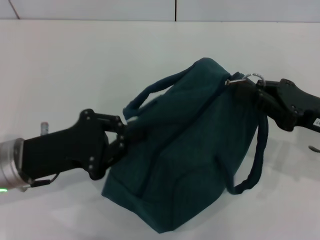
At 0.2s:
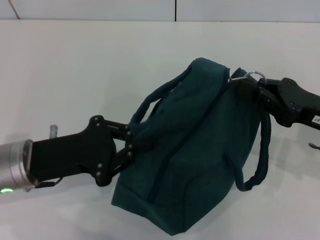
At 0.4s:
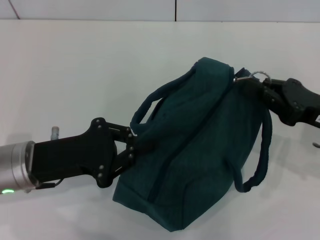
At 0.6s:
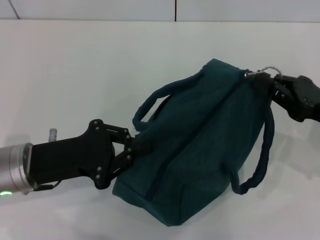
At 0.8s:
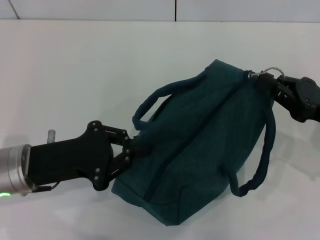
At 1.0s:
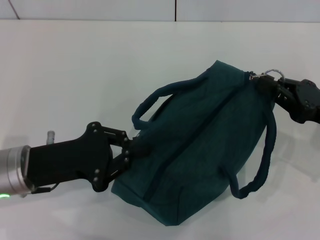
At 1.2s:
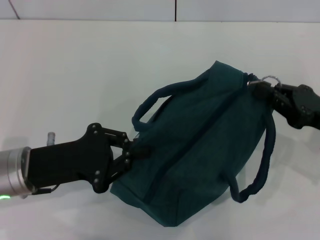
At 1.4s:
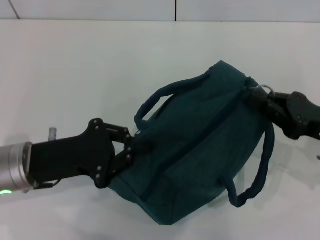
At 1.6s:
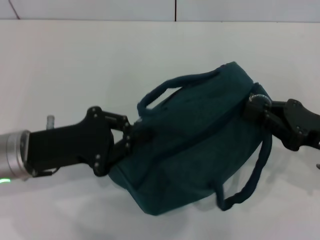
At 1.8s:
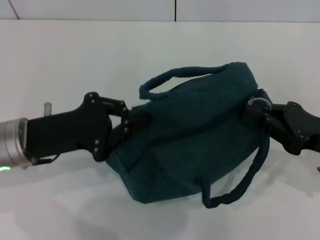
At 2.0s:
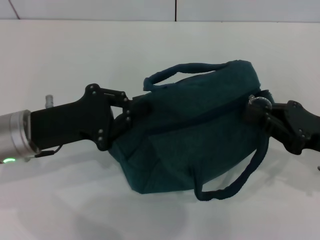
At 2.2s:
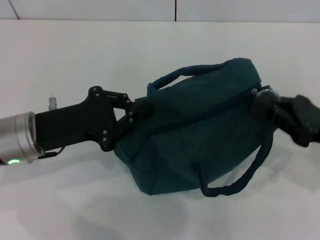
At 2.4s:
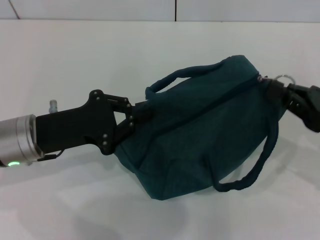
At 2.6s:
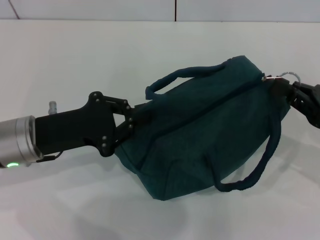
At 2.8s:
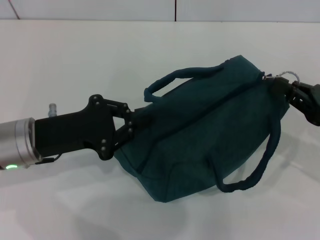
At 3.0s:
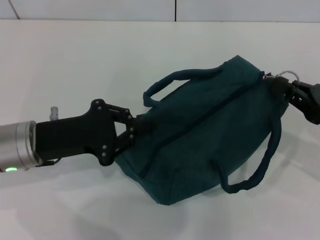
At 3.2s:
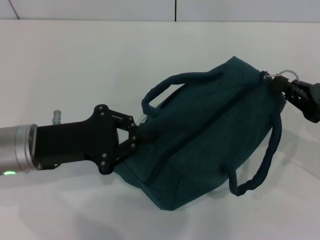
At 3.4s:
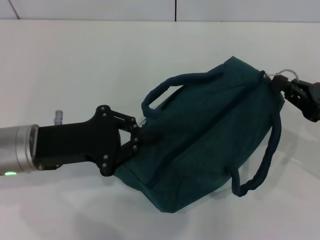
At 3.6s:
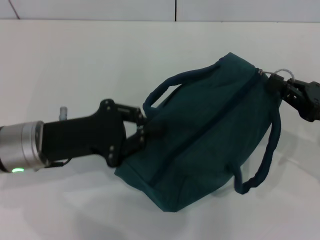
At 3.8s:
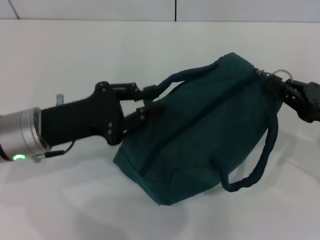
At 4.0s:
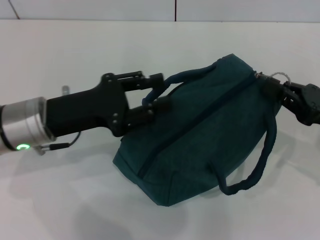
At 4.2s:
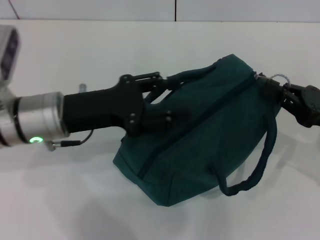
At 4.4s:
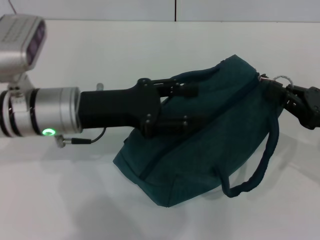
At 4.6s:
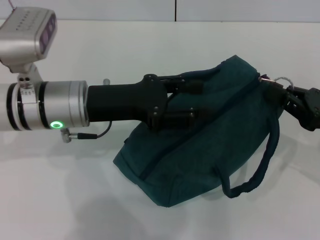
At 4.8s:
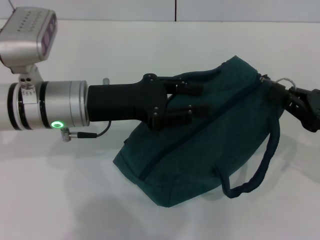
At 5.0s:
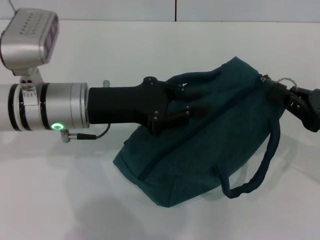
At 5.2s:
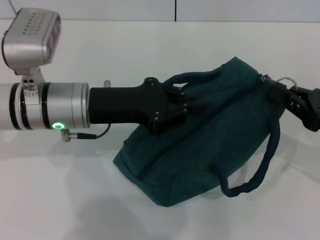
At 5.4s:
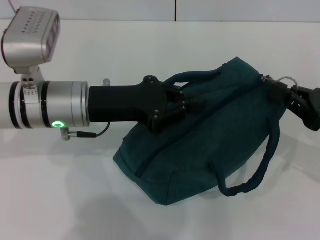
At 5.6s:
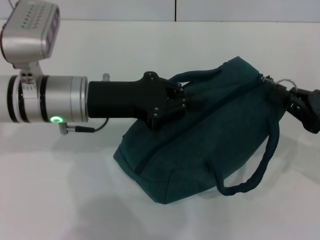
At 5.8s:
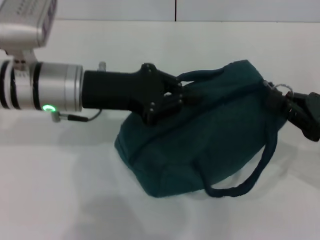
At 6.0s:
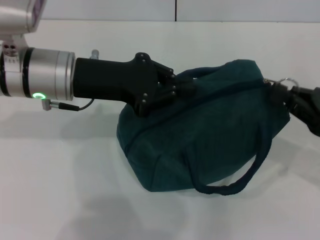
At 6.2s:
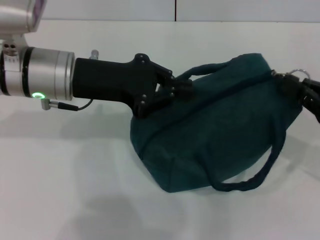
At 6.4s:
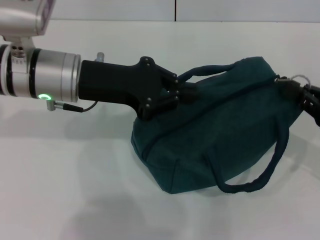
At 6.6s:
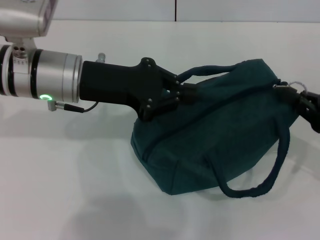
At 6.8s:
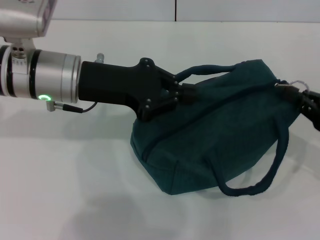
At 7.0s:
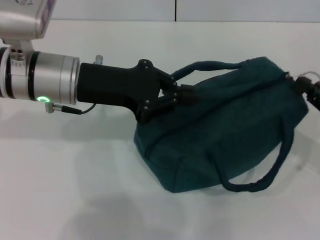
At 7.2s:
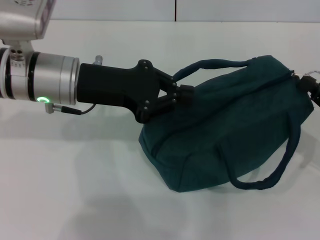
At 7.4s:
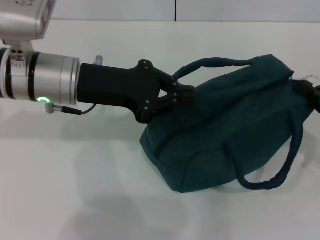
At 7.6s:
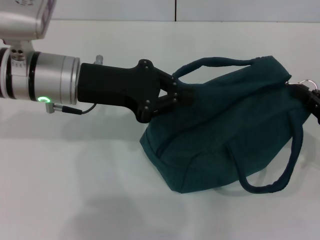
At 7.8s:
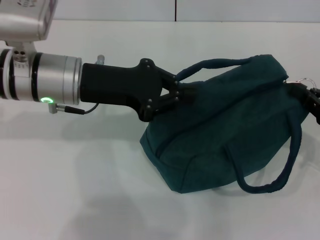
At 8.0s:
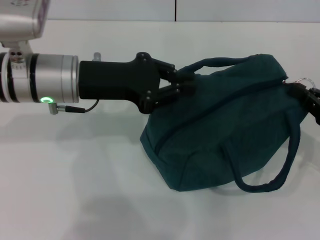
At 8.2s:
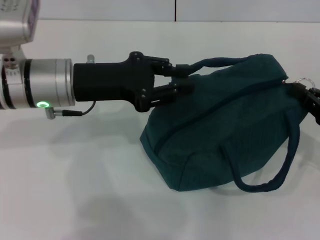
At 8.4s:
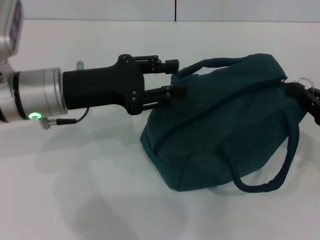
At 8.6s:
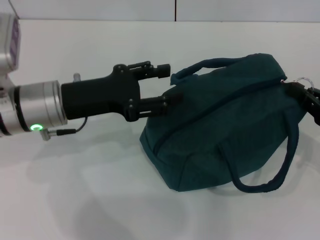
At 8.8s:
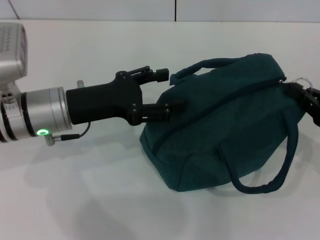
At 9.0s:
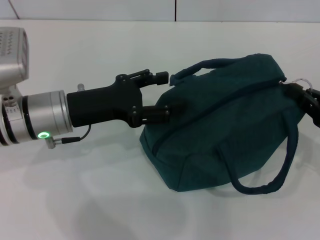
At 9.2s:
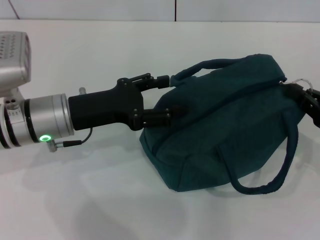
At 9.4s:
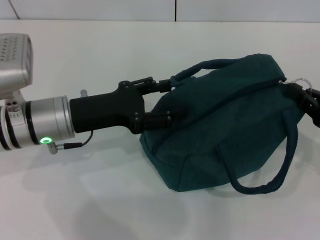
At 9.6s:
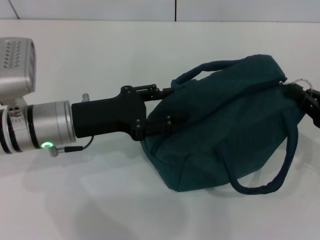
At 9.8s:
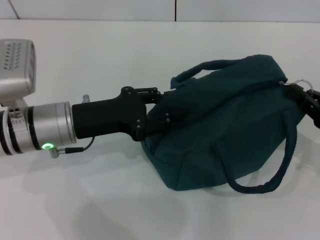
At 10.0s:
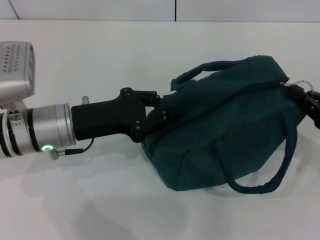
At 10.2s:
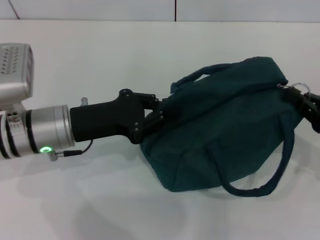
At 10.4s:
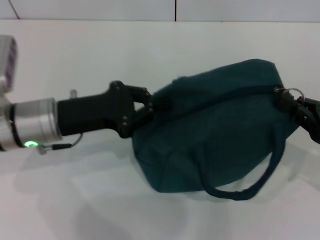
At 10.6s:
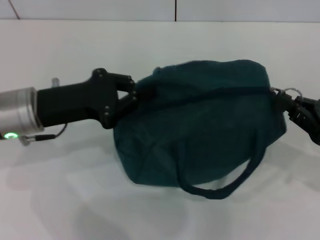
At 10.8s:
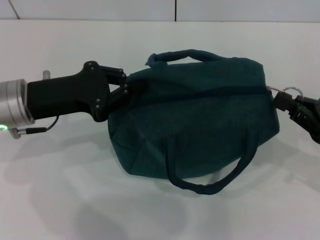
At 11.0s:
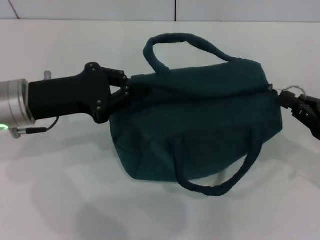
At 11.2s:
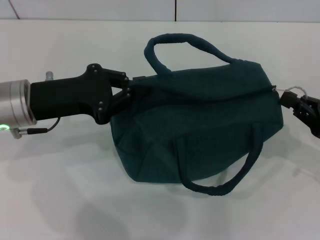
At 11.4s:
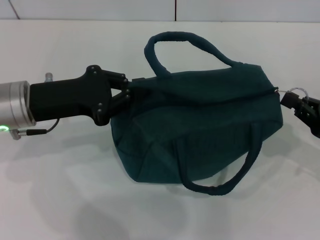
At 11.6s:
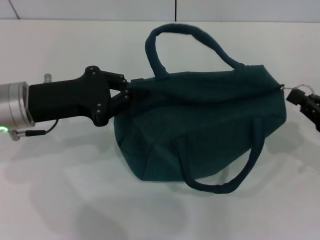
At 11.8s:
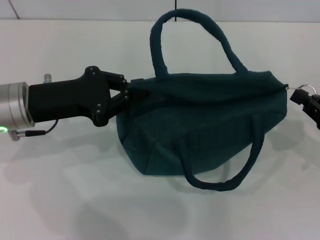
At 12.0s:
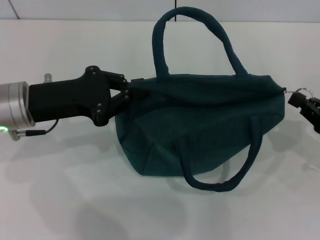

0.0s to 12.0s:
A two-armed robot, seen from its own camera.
0.0s to 3.0s: The grippers stay close to where they were, moving slightly.
3.0s to 4.4s: The left gripper heads to the right, covering about 5 cm, and opens.
4.4s to 6.0s: The left gripper moves some 5 cm, and closes its fingers.
6.0s to 7.6s: The grippers move only a little.
7.6s to 9.0s: The left gripper heads downward, covering about 5 cm, and opens its fingers.
9.0s to 10.4s: The left gripper closes.

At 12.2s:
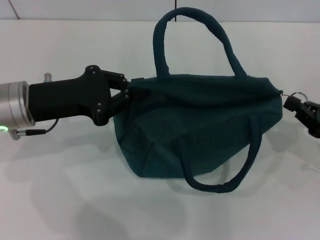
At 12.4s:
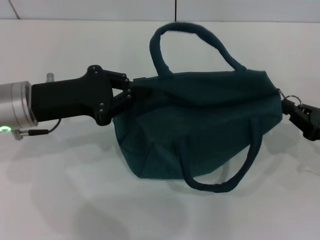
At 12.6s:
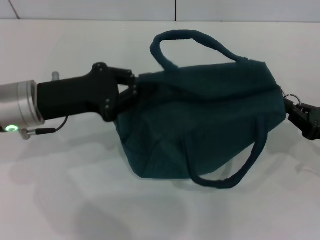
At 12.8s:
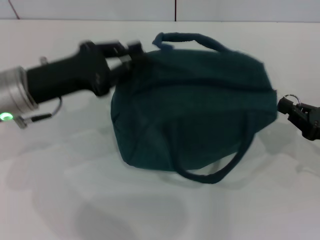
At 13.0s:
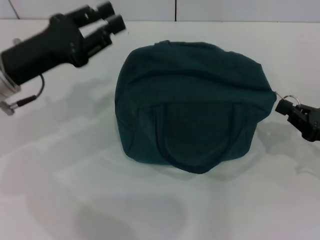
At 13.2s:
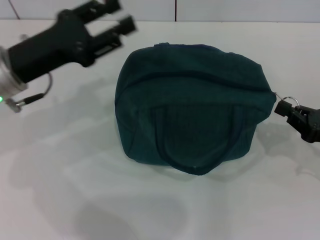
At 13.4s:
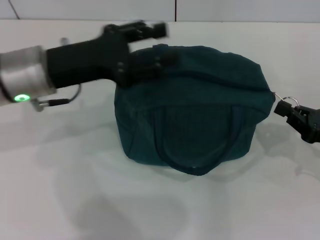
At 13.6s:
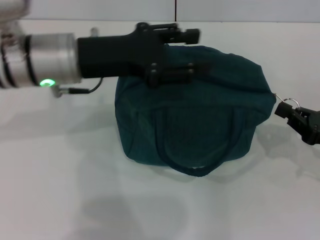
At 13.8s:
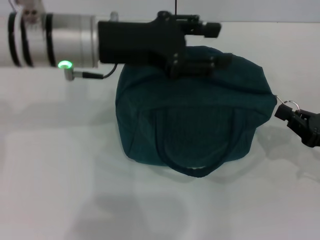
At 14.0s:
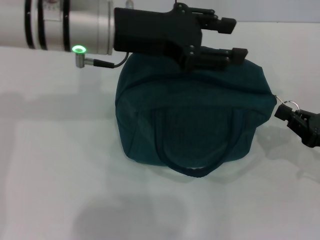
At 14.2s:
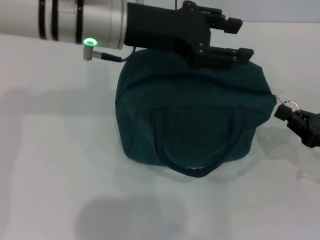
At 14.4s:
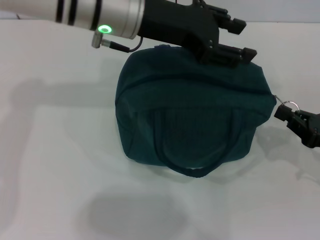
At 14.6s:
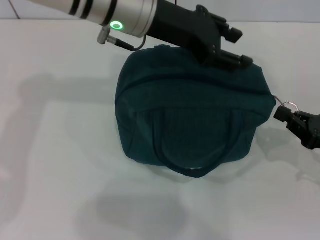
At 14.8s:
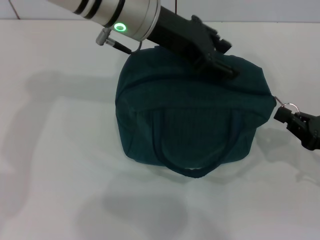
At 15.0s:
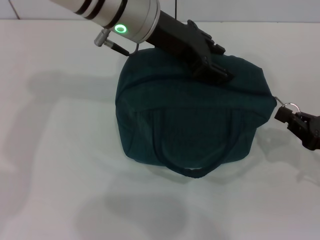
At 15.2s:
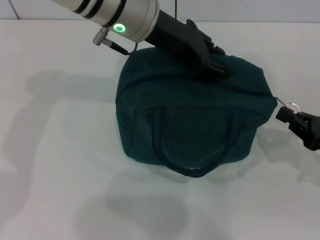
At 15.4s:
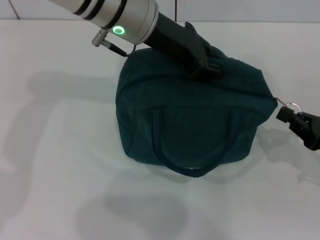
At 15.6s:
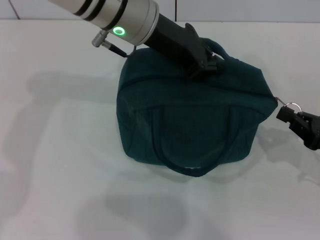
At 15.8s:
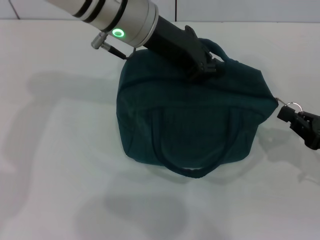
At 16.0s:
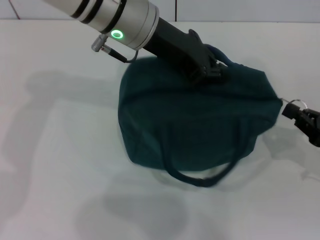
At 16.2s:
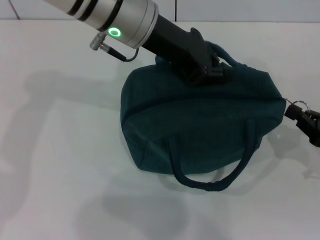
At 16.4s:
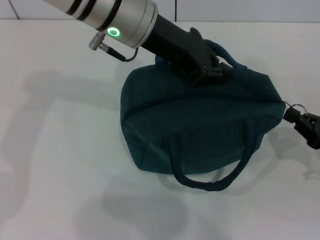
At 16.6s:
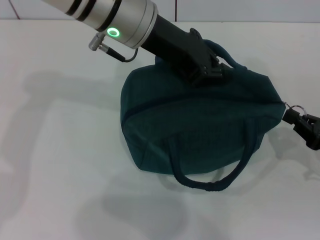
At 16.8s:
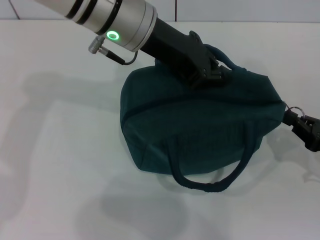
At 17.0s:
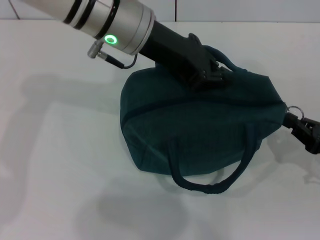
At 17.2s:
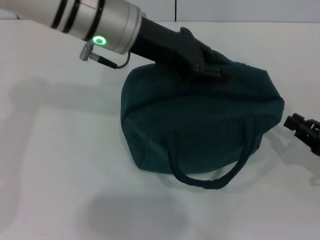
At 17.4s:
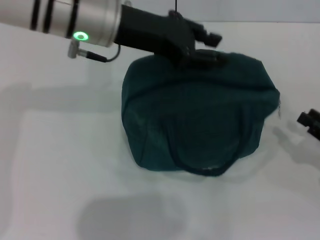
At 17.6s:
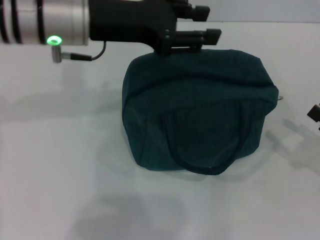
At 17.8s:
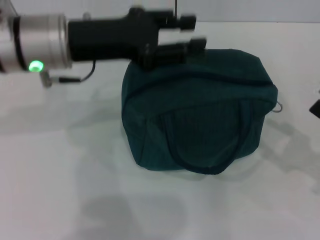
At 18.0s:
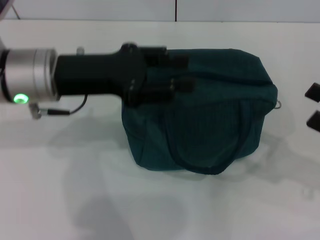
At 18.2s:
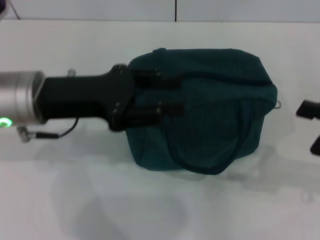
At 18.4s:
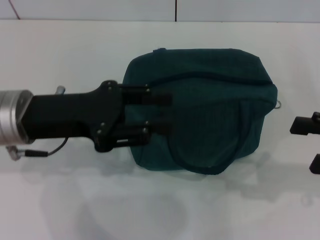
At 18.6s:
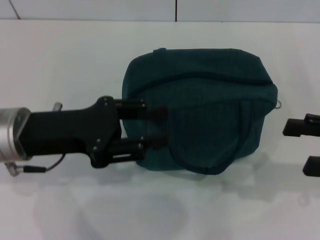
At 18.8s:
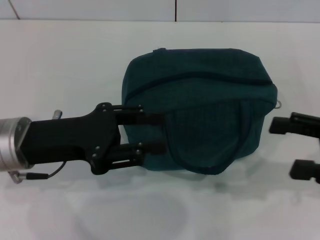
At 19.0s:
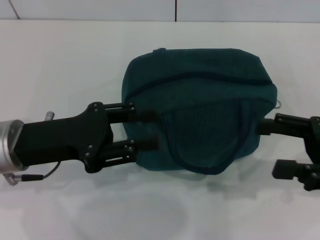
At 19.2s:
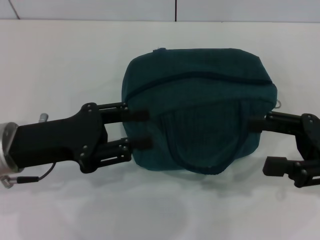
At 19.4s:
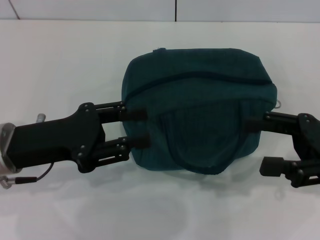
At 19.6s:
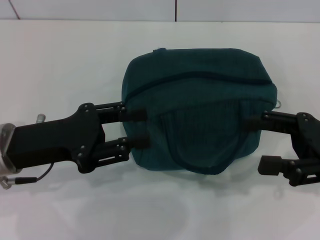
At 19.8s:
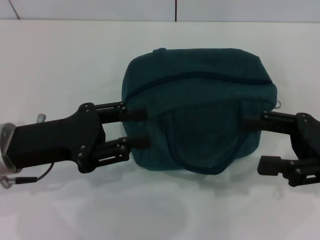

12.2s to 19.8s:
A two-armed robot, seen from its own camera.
Step, 12.2s to 17.0s: Zip up the lunch bag with your right hand.
Step, 17.2s to 17.6s: Hold the lunch bag with your left hand.
12.2s to 13.8s: The left gripper travels to the right and upward by approximately 10 cm, and opens its fingers.
13.8s to 15.2s: The left gripper goes about 10 cm to the right and forward.
15.2s to 16.8s: The left gripper closes up.
16.8s to 18.2s: The right gripper travels upward by roughly 10 cm, and opens; the left gripper moves to the left, backward and downward, about 15 cm, and opens.
18.2s to 19.8s: The right gripper heads to the left, covering about 5 cm, while the left gripper ends up some 5 cm from where it was.

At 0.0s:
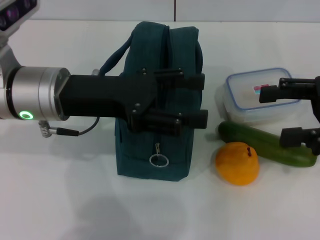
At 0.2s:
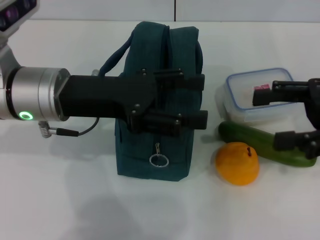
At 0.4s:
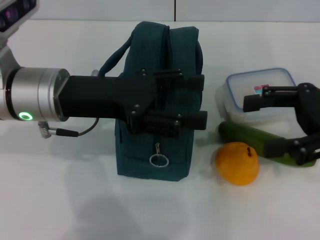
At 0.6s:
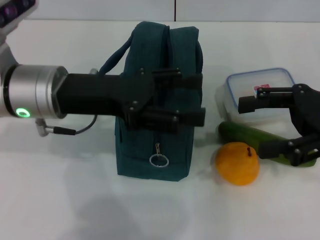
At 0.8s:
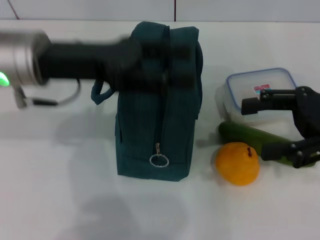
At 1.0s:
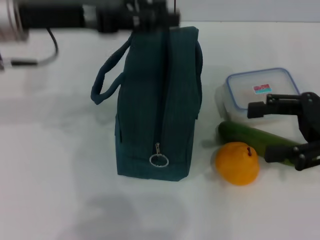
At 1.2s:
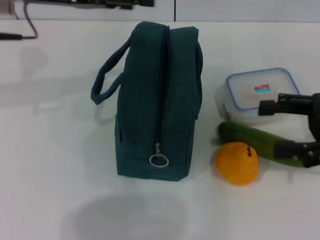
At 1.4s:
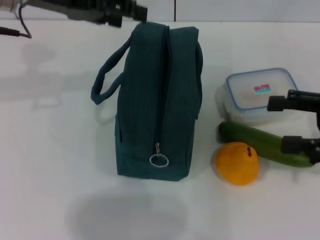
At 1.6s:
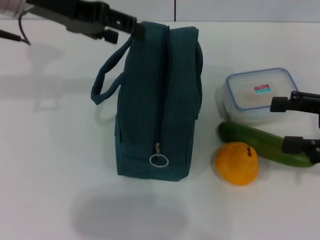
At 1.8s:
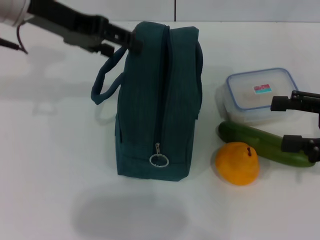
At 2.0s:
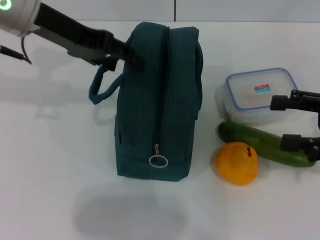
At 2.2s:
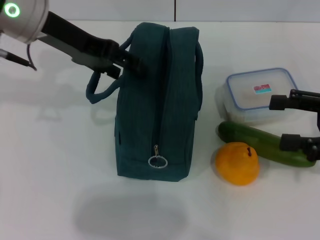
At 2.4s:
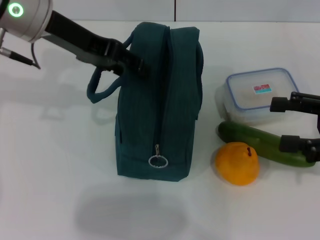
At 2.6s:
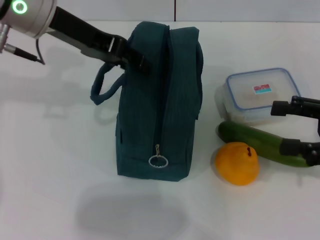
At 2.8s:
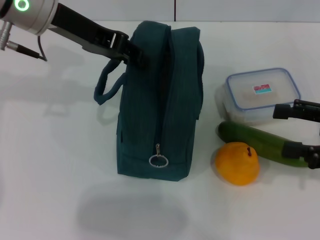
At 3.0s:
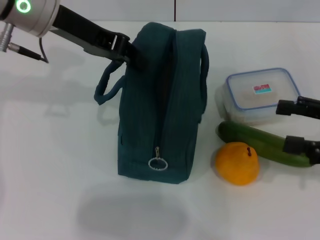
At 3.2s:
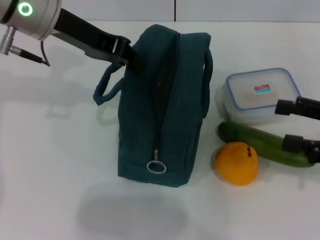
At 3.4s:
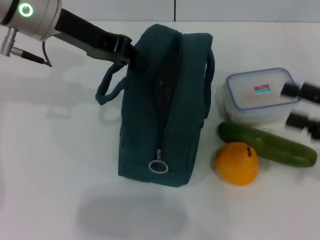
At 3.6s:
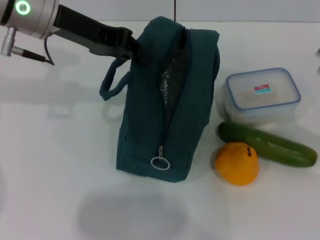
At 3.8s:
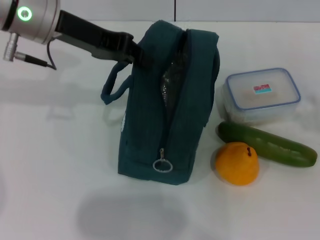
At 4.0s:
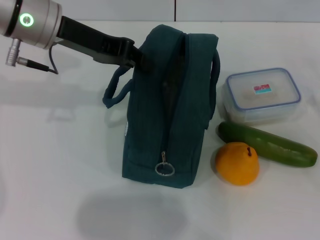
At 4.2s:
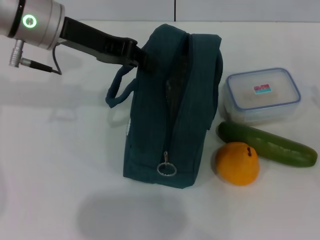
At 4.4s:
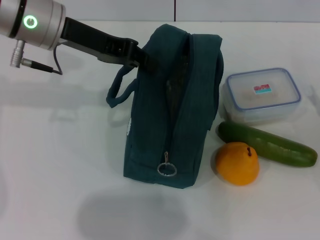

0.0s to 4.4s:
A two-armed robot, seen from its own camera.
Step, 0.0s to 3.2s: Hold the lunch bag with your left hand.
0.0s to 1.4s: The left gripper heads upward and forward, covering about 10 cm.
1.4s to 3.0s: The left gripper closes its fingers.
3.0s to 4.4s: The right gripper goes approximately 10 cm downward.
